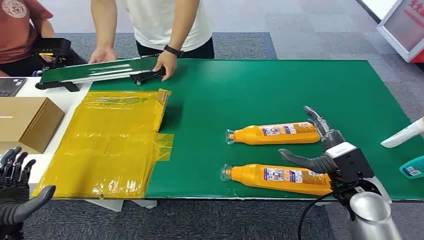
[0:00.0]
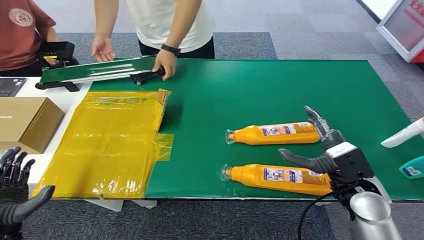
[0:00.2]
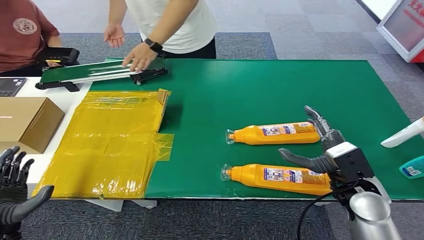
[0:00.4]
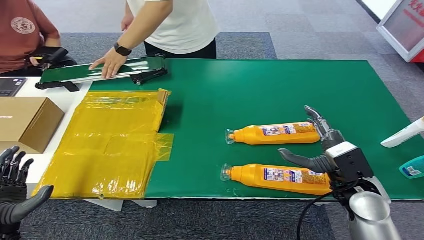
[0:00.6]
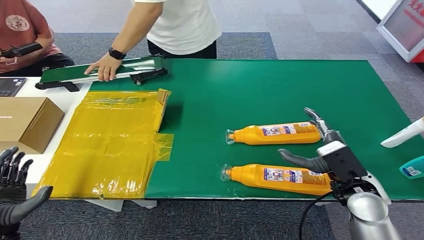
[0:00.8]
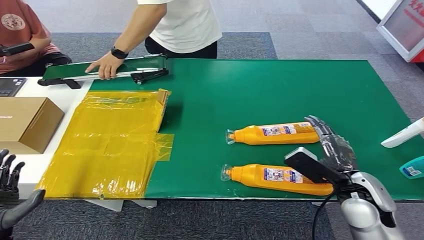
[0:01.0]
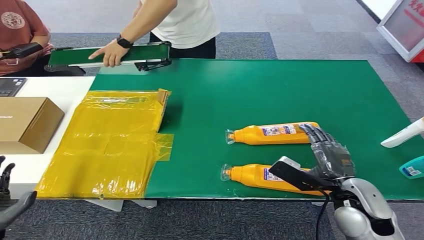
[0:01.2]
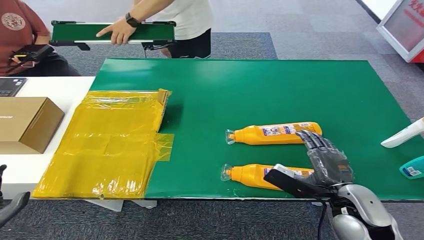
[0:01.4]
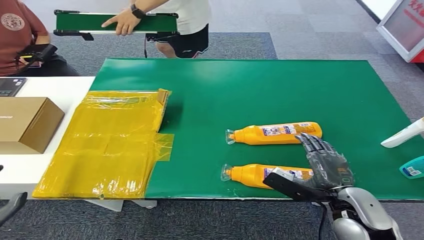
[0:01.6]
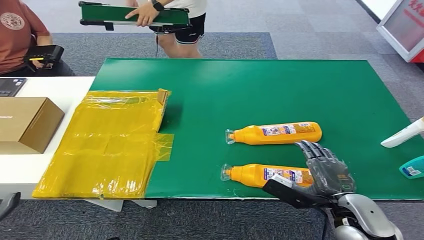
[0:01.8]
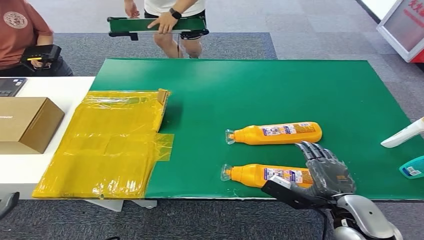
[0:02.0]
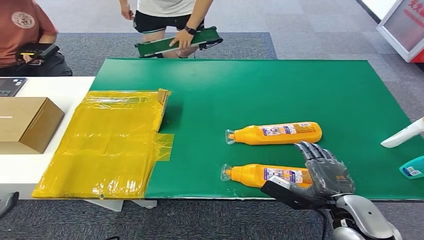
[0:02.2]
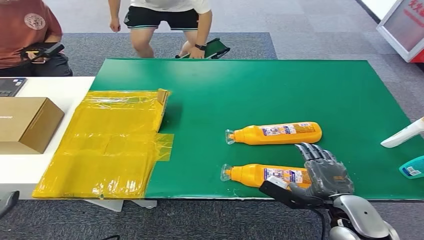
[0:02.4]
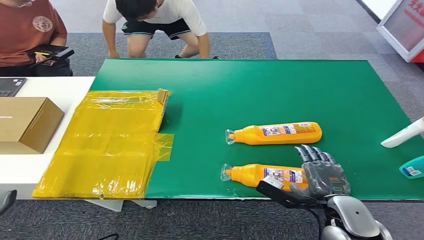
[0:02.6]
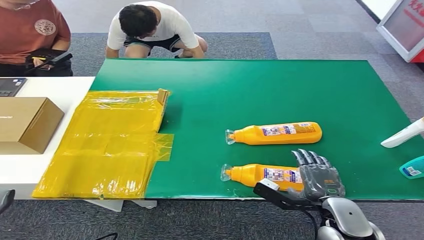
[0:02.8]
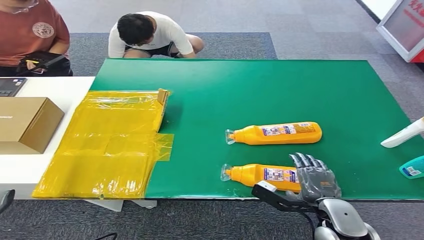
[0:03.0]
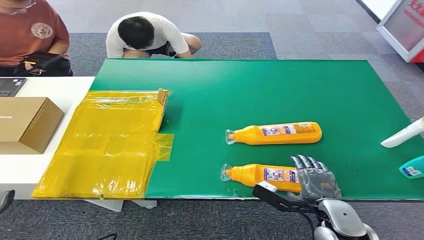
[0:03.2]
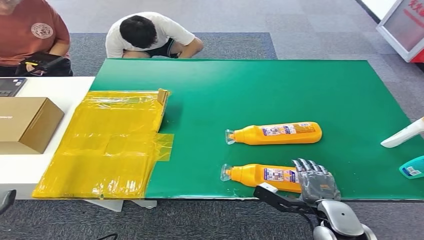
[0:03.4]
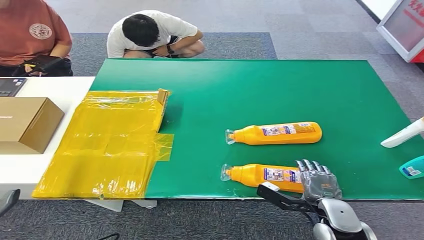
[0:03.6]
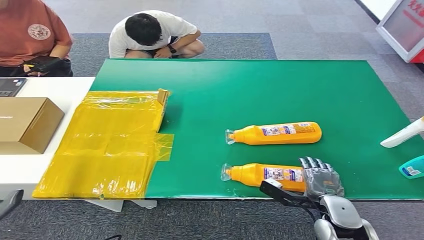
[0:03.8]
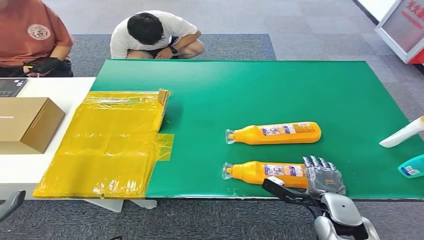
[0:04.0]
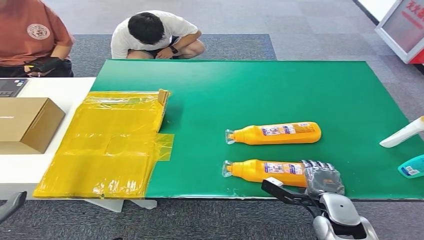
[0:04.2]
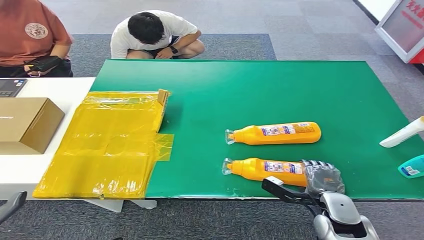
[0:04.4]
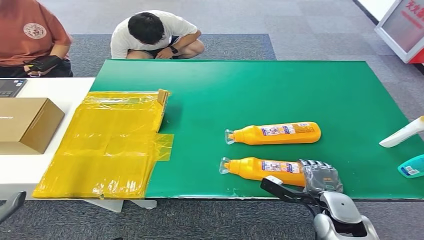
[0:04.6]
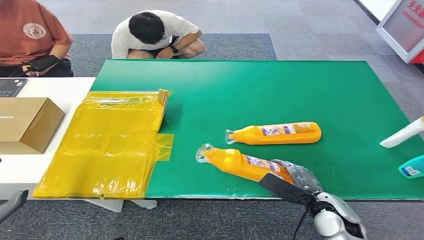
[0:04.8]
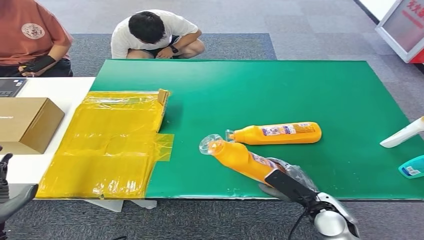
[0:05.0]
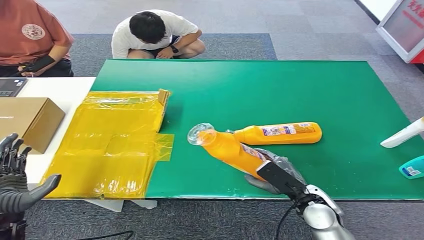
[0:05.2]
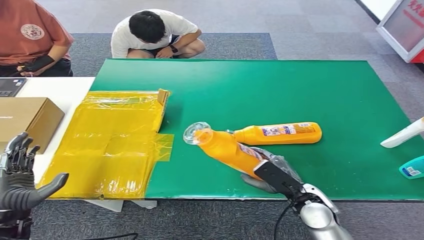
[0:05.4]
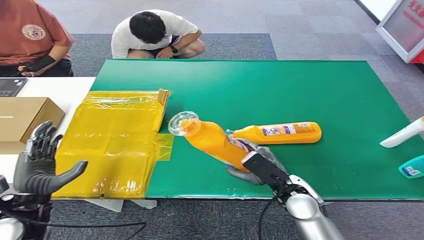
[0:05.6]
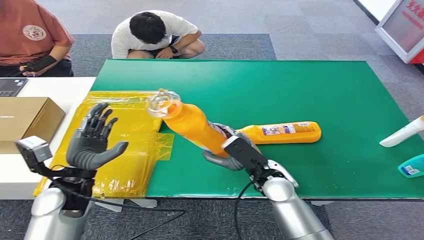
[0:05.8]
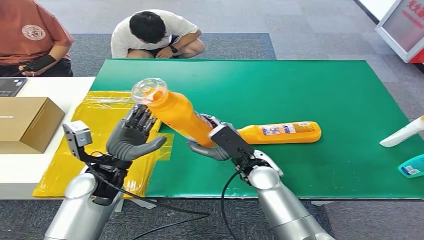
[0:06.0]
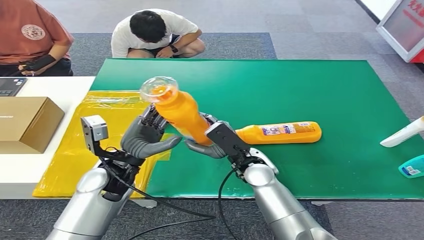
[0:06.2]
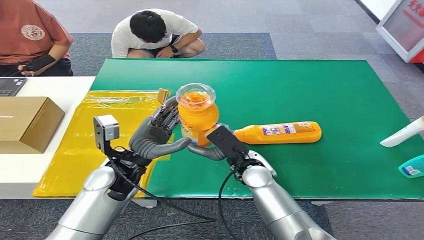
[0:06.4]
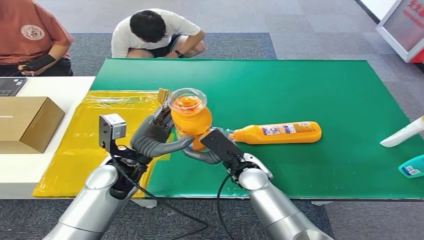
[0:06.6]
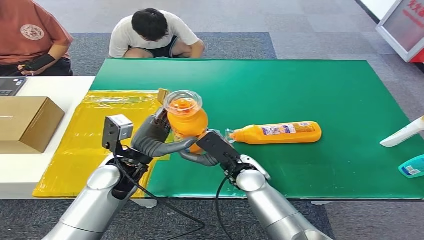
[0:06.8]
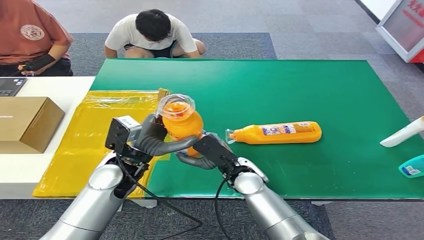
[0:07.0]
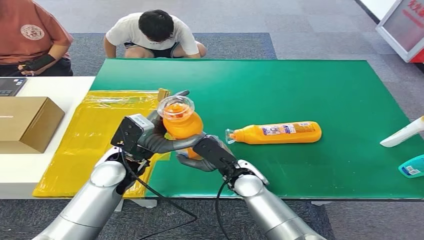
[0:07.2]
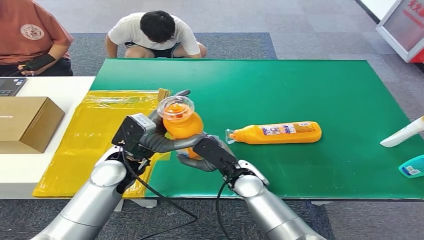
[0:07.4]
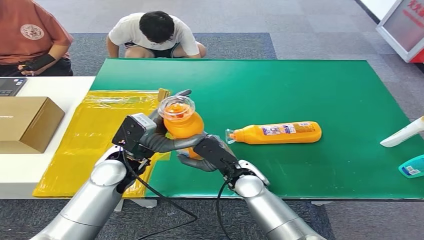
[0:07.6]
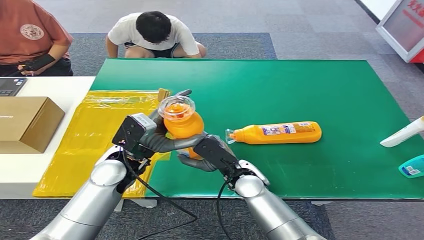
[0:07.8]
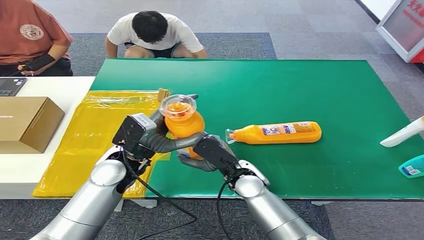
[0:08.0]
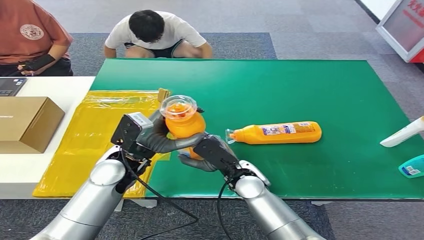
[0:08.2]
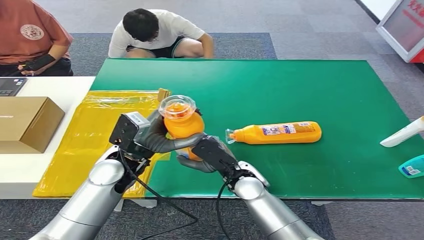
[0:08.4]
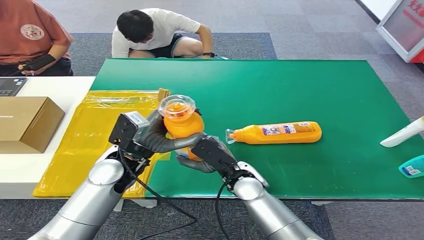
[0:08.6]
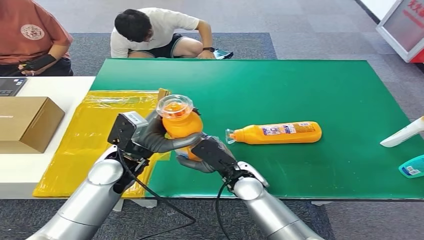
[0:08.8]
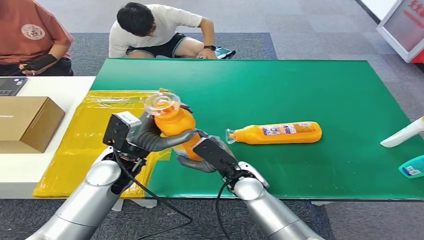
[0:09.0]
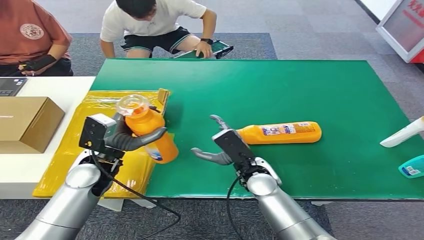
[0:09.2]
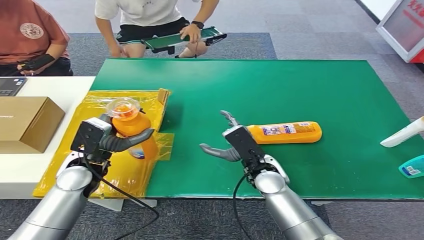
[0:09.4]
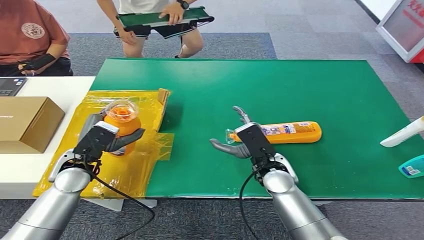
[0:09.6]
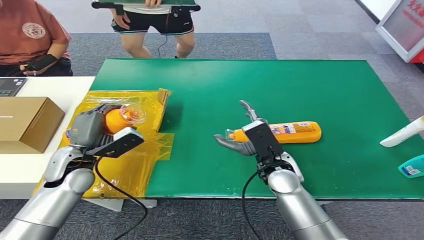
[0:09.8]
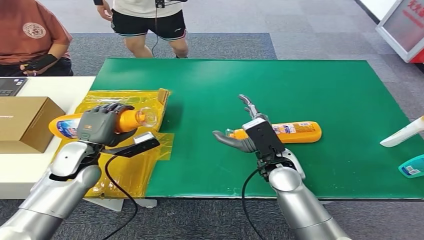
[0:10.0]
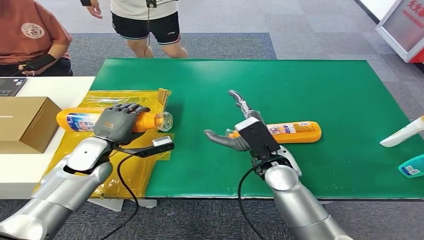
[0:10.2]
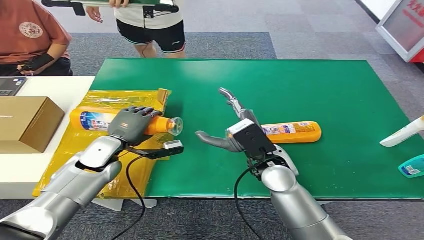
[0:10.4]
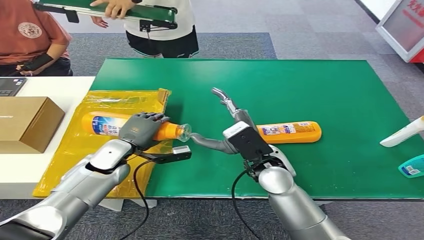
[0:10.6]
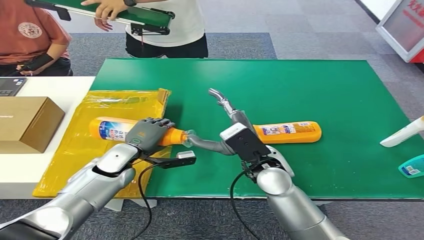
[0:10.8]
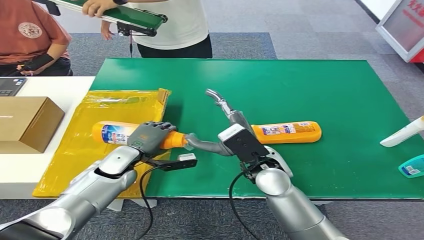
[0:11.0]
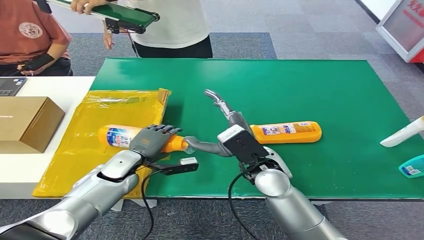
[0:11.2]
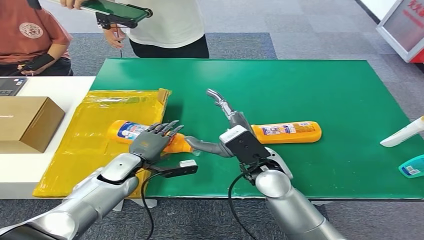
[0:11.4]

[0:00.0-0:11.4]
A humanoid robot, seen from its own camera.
Step, 0:00.0 to 0:05.6: Pick up the bottle from the table.
0:01.4 to 0:02.8: The hands stay close to where they were, moving slightly.
0:02.8 to 0:04.2: The right hand moves downward, approximately 5 cm.
0:04.2 to 0:05.6: The left hand moves forward and to the right, about 10 cm; the right hand heads to the left and forward, covering roughly 10 cm.
0:07.2 to 0:08.6: Both hands stay about where they are.

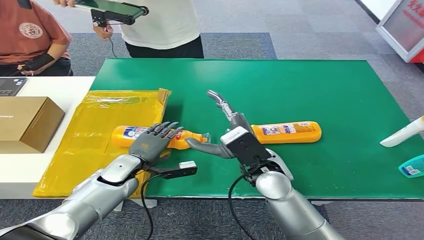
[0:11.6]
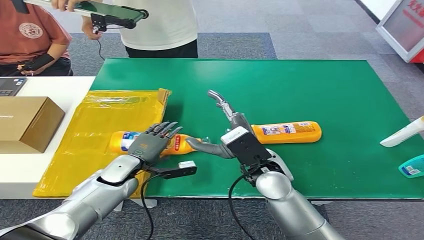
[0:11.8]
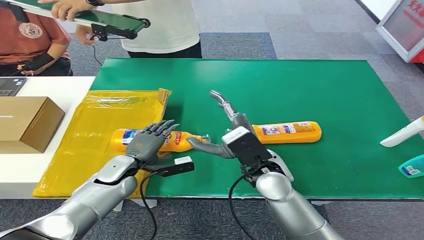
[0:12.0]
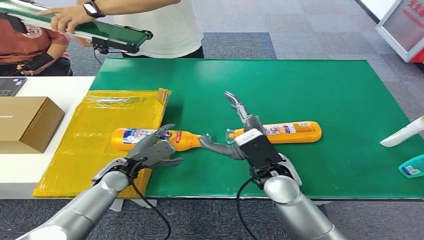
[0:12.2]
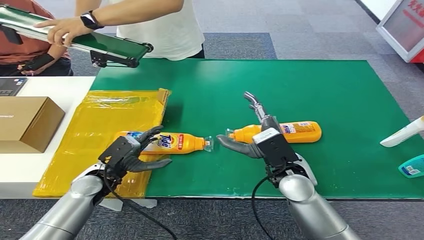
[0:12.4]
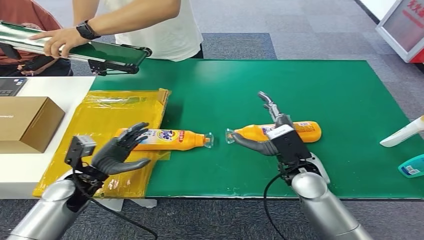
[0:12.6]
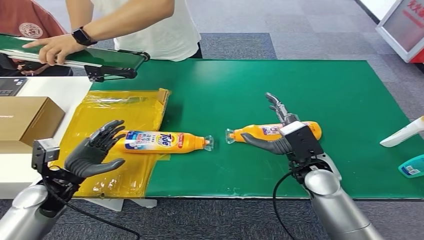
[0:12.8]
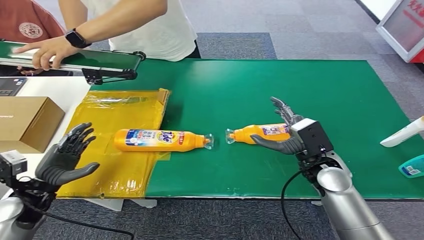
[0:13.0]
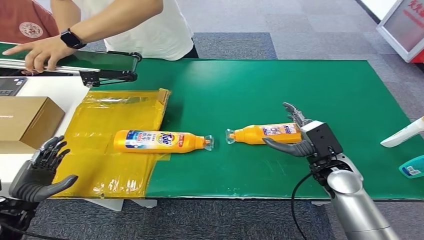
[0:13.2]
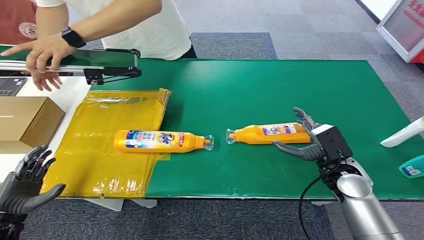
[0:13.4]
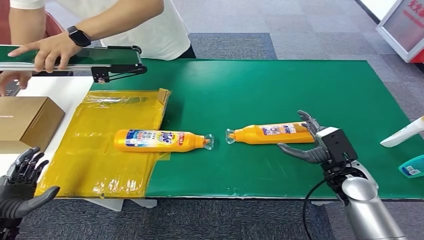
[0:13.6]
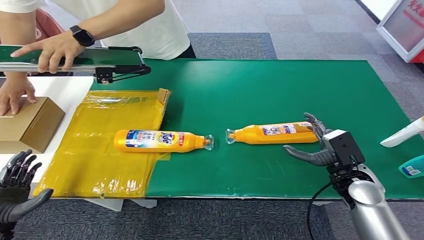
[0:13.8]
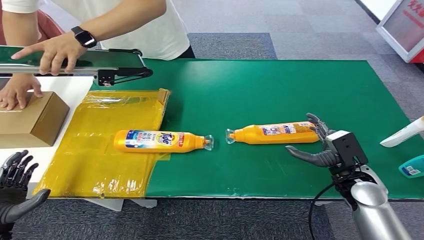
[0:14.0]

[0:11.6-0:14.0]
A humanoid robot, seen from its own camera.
Step, 0:11.6 to 0:14.0: Turn the bottle to the front side.
